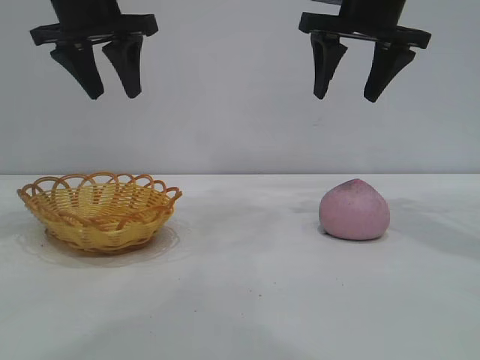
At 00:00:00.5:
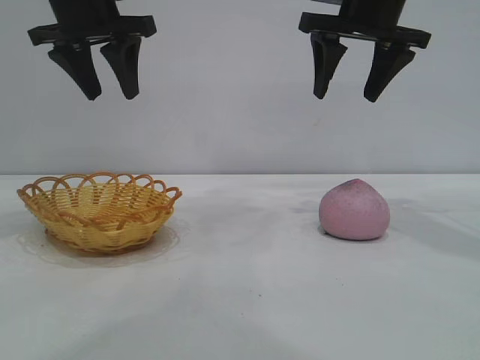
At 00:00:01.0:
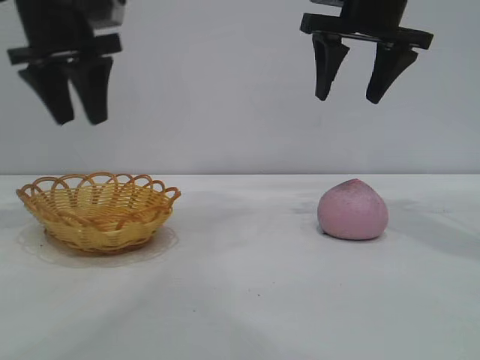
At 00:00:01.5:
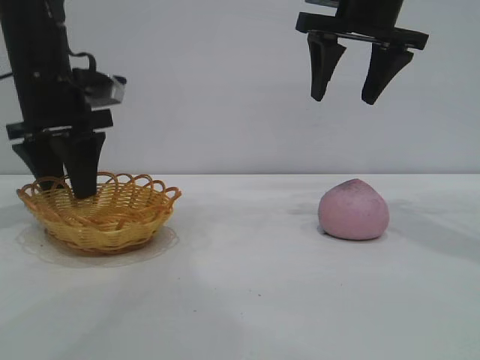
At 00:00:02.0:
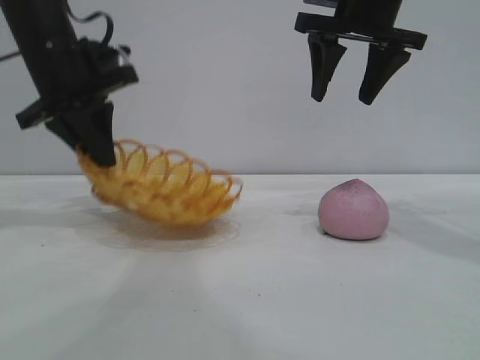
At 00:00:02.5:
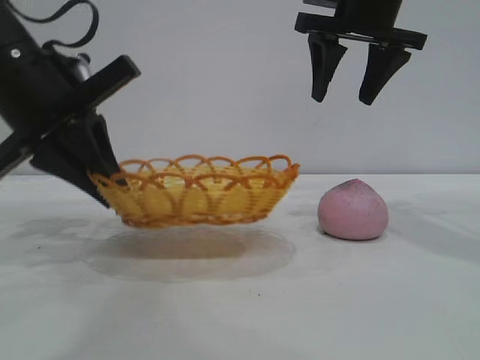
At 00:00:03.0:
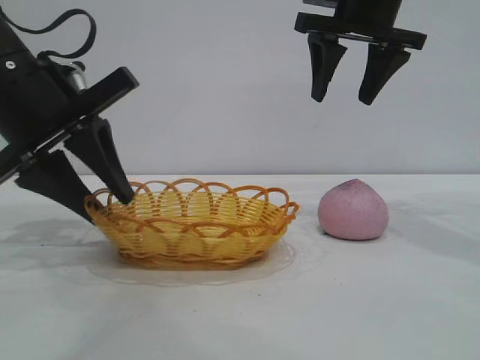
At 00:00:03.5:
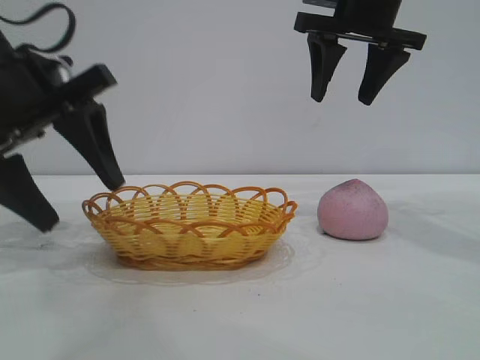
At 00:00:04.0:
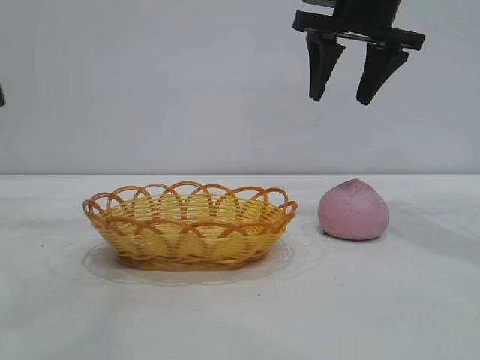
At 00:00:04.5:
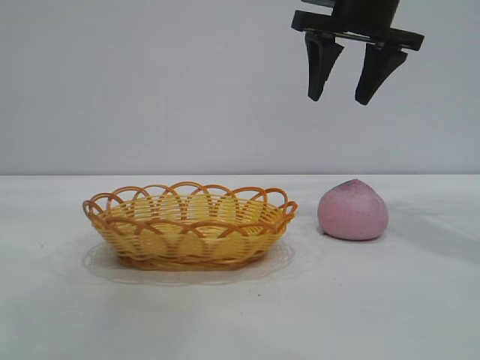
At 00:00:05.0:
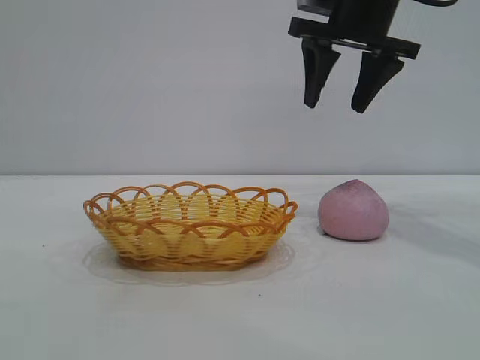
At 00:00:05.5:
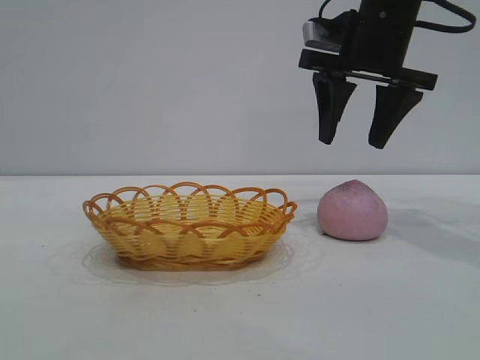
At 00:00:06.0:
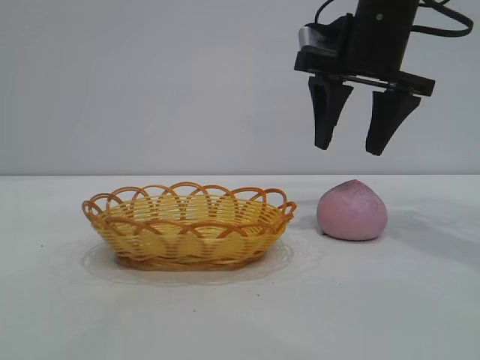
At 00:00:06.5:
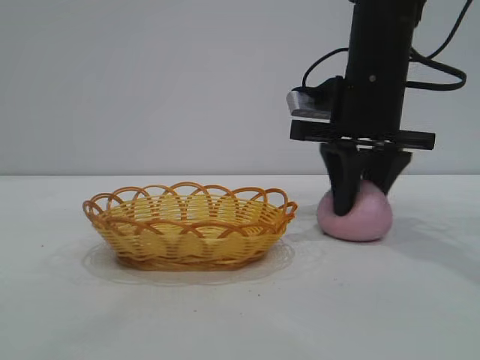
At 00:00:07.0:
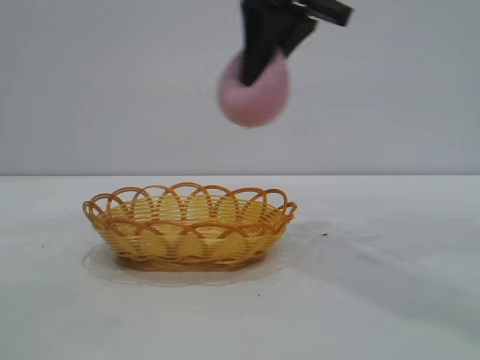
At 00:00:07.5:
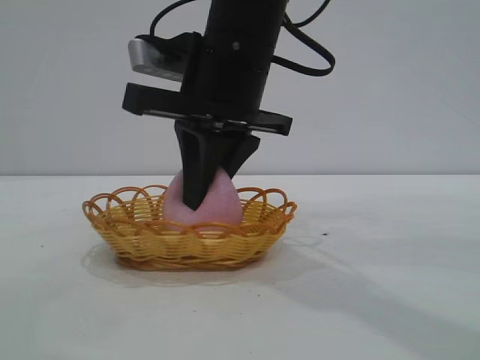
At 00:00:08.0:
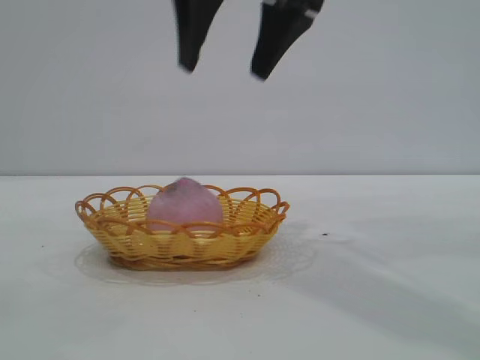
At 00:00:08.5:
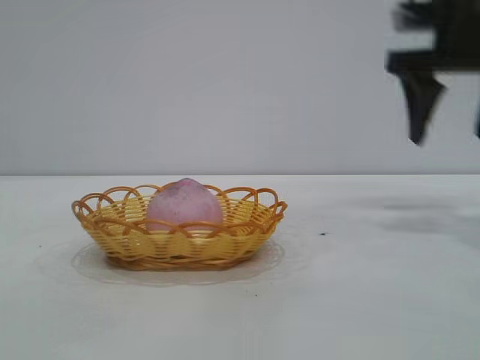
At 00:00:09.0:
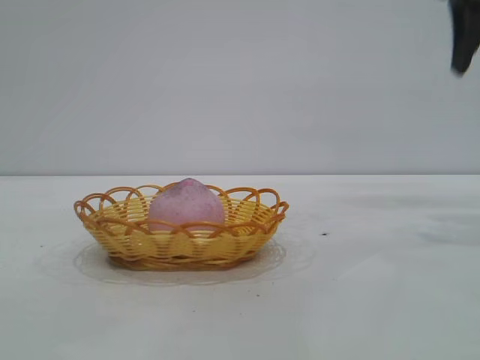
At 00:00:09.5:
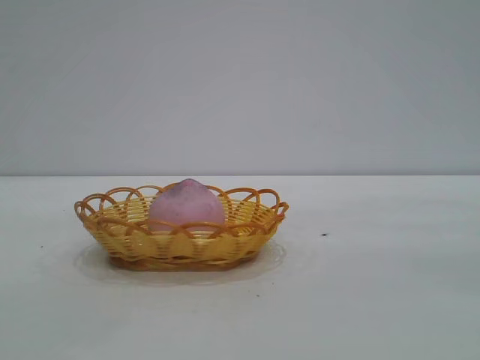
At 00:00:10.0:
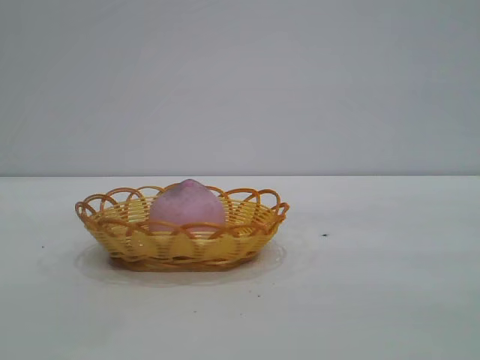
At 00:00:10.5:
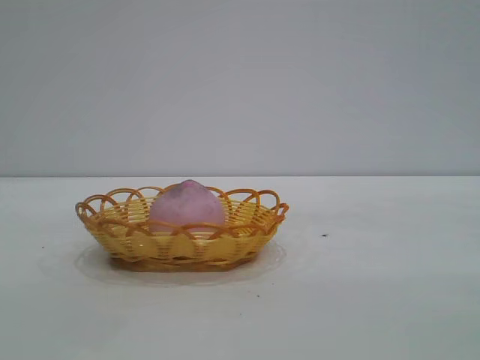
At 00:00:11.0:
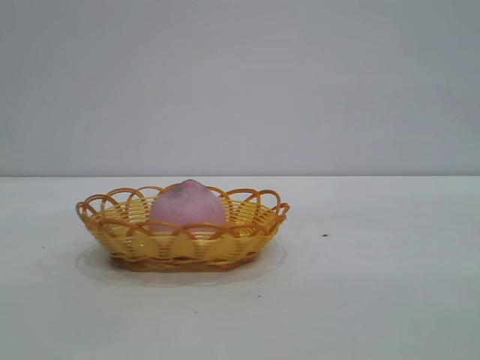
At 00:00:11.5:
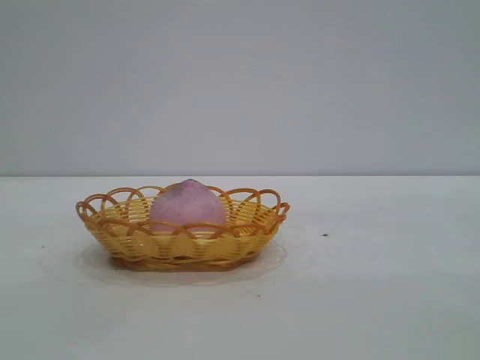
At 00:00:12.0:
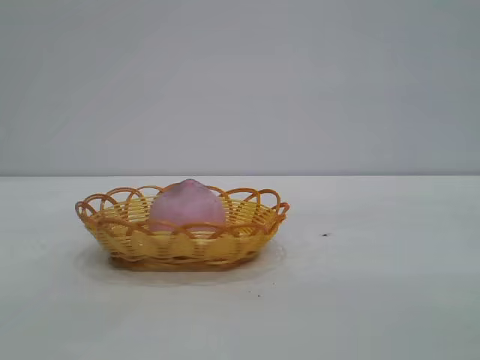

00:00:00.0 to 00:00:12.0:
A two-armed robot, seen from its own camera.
Task of the whole recording: pick up the peach and put it into the basket.
Step, 00:00:00.0 to 00:00:03.0: Move the basket to the center of view.
Step, 00:00:04.0 to 00:00:06.5: Pick up the peach.
Step, 00:00:07.0 to 00:00:07.5: place the peach into the basket.
